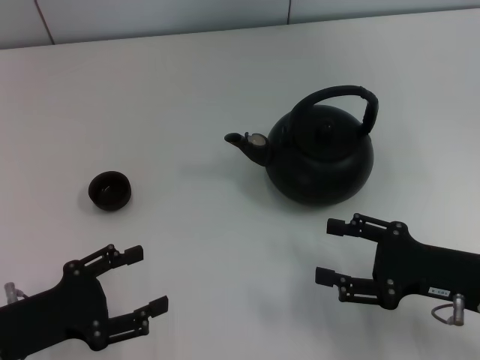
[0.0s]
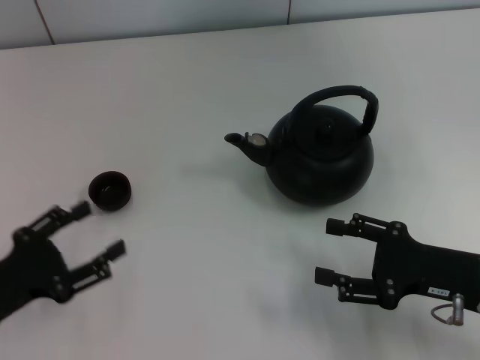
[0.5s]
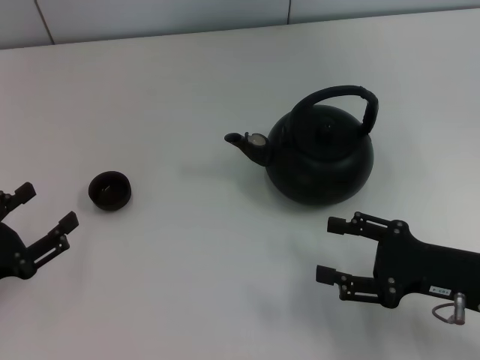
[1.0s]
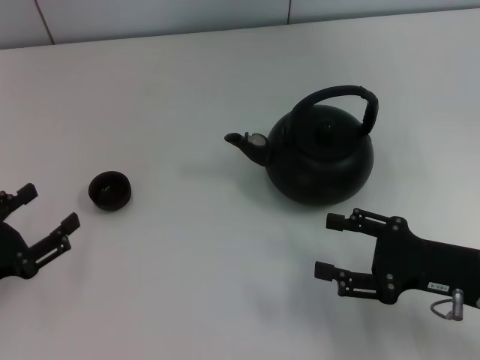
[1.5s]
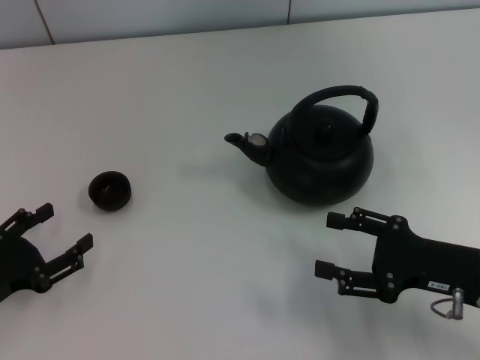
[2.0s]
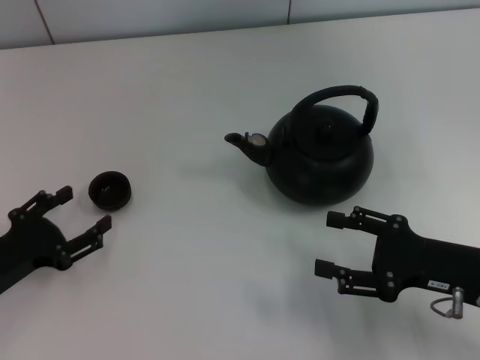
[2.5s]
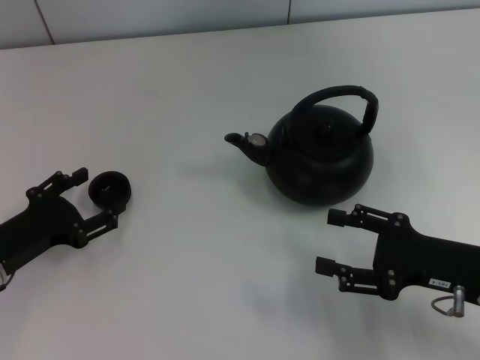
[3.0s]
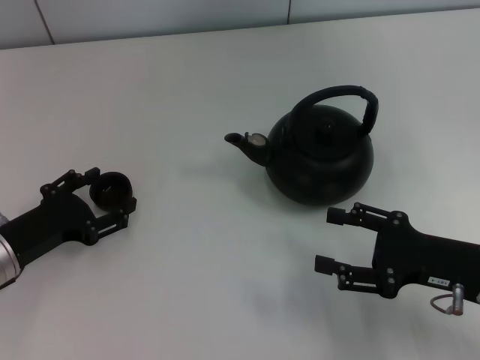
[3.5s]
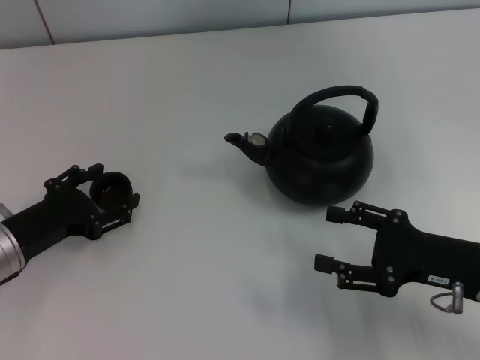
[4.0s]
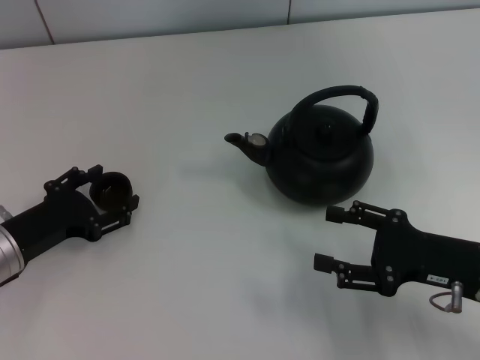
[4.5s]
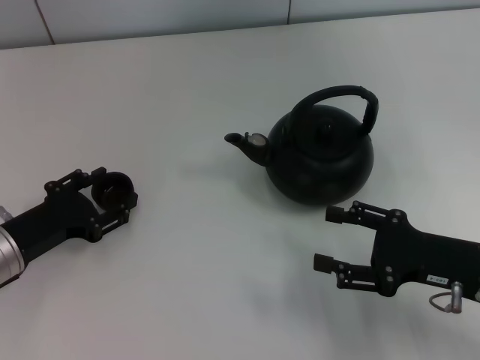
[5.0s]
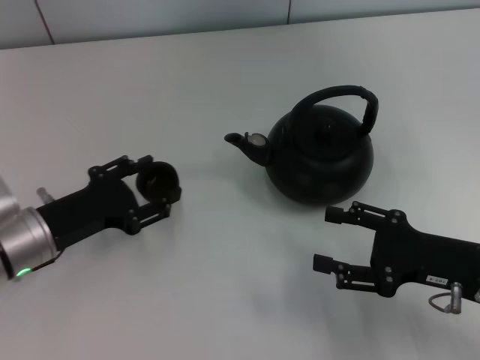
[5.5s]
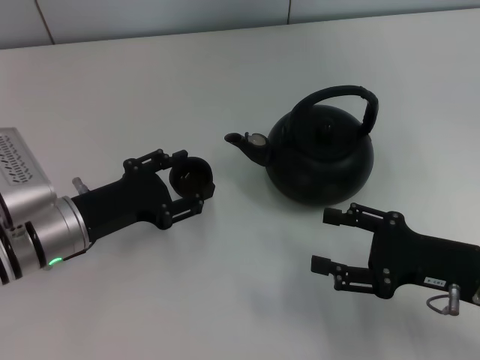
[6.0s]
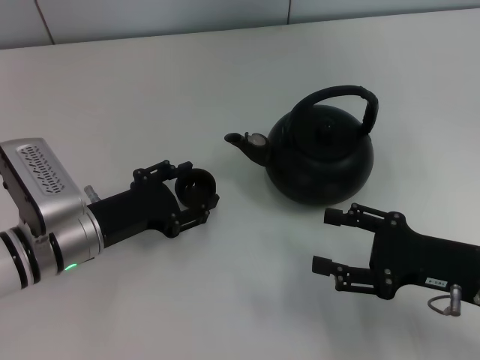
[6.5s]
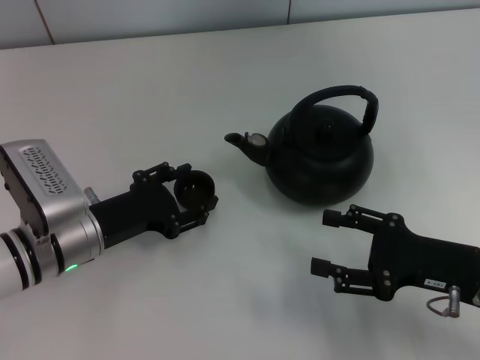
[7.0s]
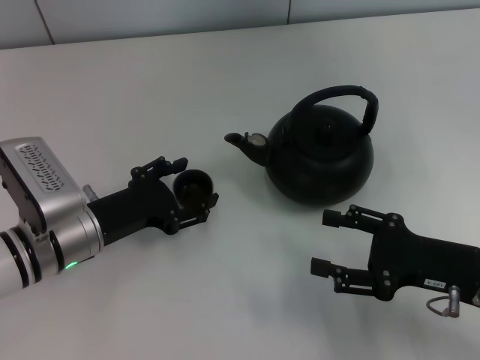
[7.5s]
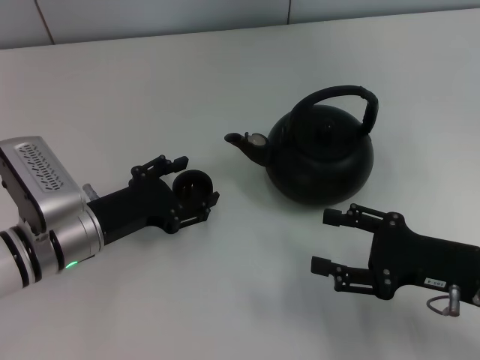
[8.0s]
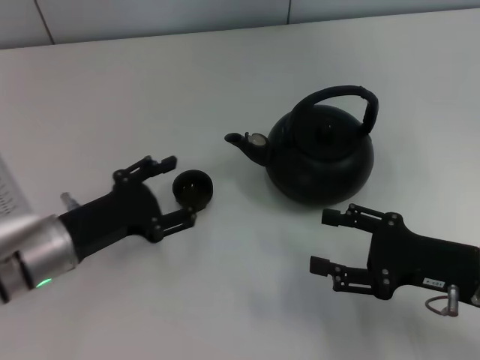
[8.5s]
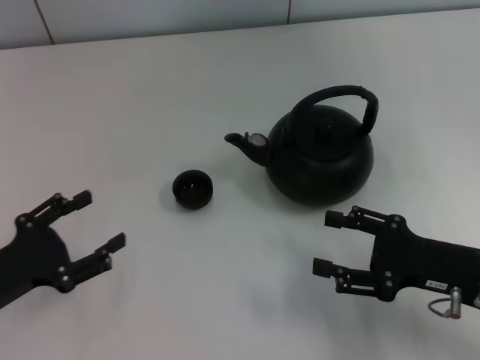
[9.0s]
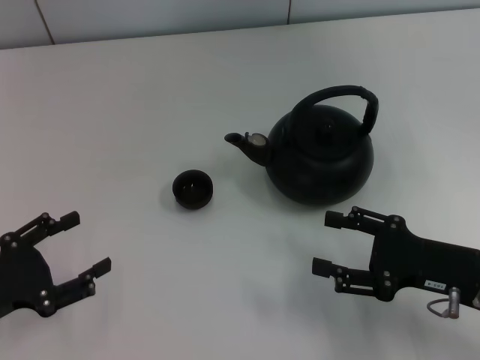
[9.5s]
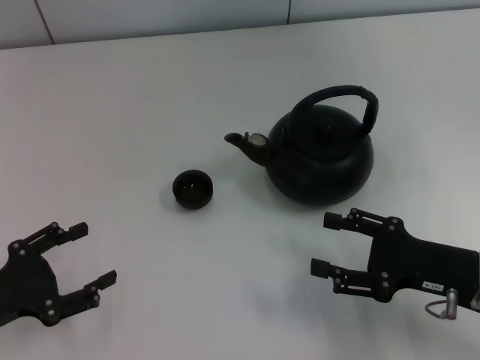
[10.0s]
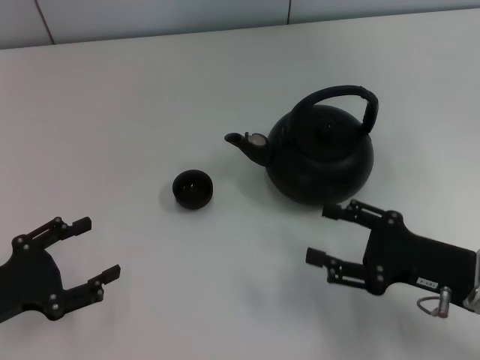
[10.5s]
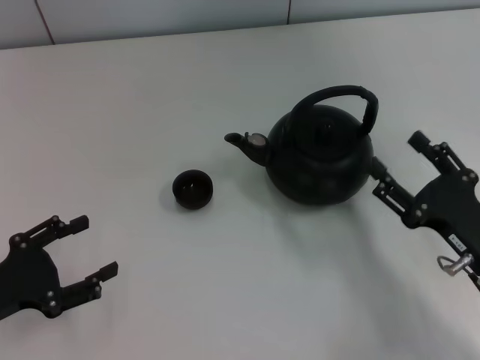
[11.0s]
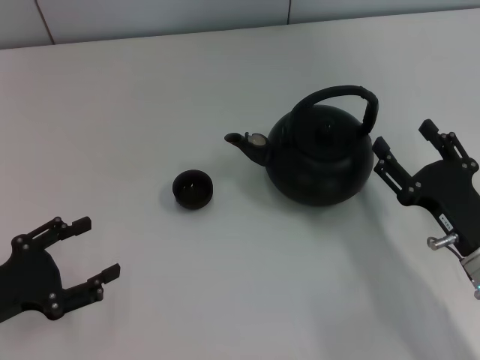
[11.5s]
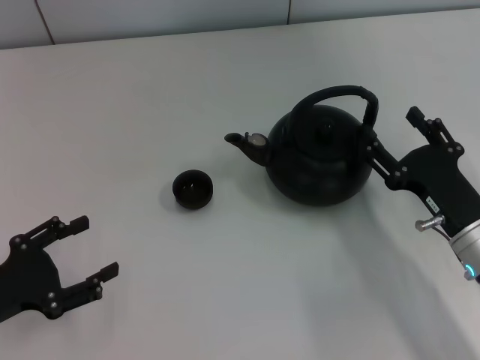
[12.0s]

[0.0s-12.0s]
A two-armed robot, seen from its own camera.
Task of the whole recording: Grasp the handle of the teapot with one hand and pour tea into the teacup.
Step, 0.0s to 5.5s: Pick up the teacup with the left gripper.
Step, 6.0s to 8.0s: Place the teacup in the center of view with the left gripper.
2.0s to 4.0s: The left gripper heads forward, covering some 5 cm.
4.0s to 6.0s: The left gripper moves to the right, about 5 cm, and closes up.
6.0s to 8.0s: The left gripper opens up.
8.0s to 10.0s: The left gripper moves to the left and backward, some 15 cm.

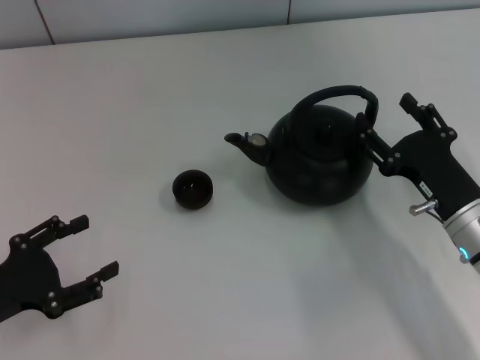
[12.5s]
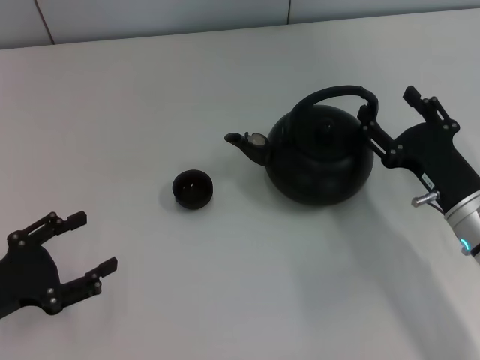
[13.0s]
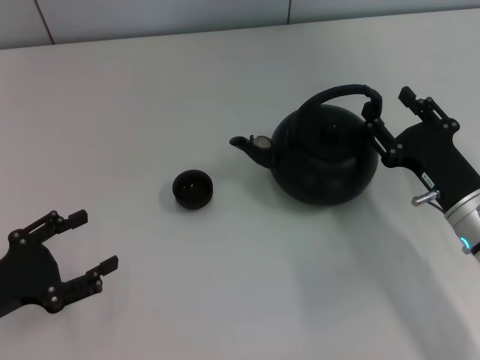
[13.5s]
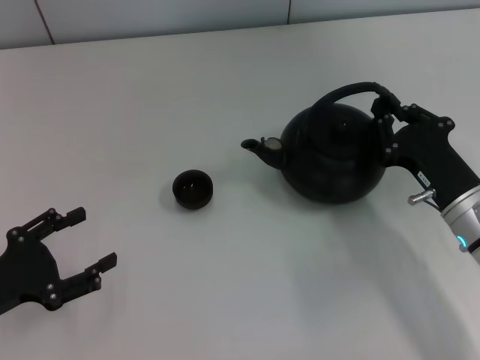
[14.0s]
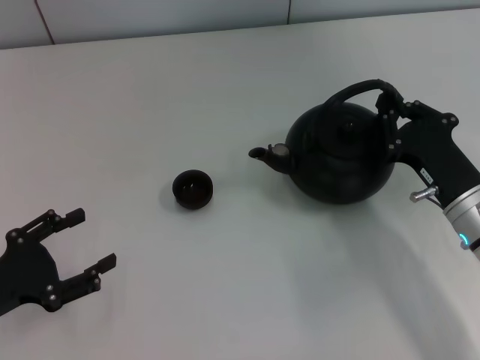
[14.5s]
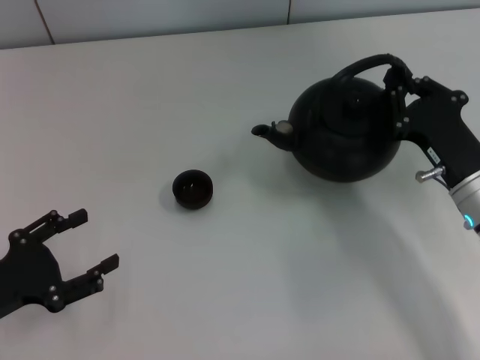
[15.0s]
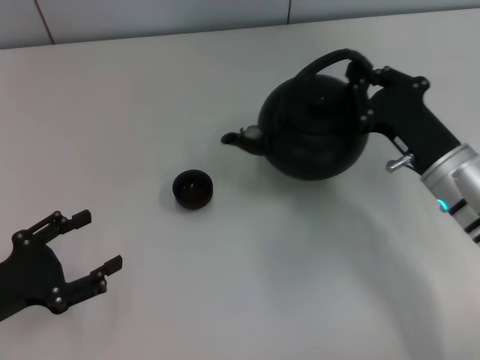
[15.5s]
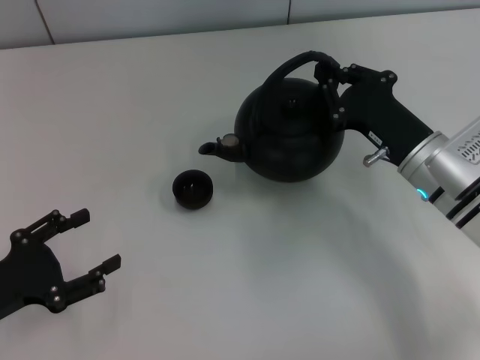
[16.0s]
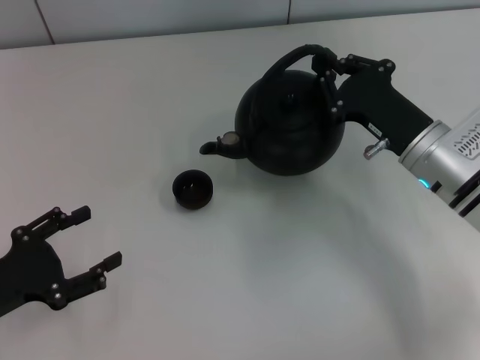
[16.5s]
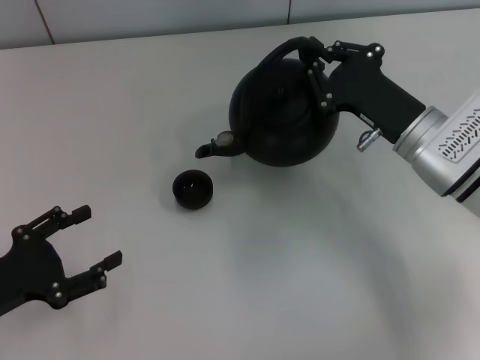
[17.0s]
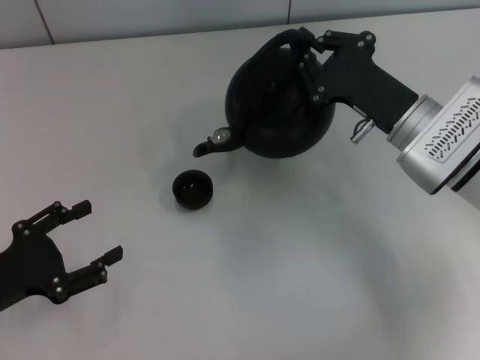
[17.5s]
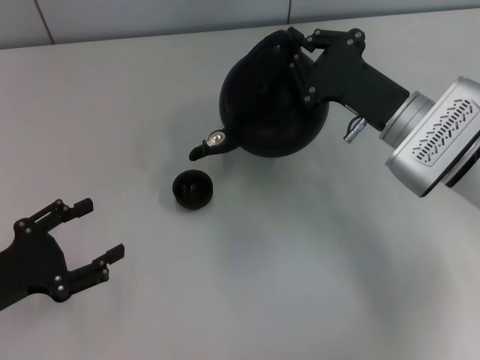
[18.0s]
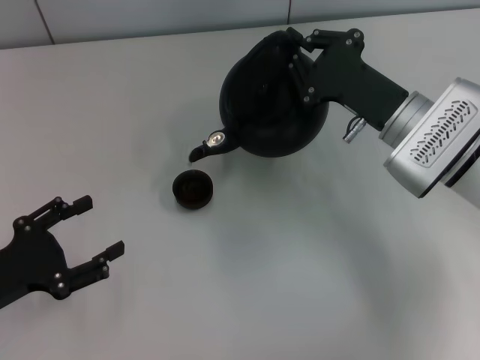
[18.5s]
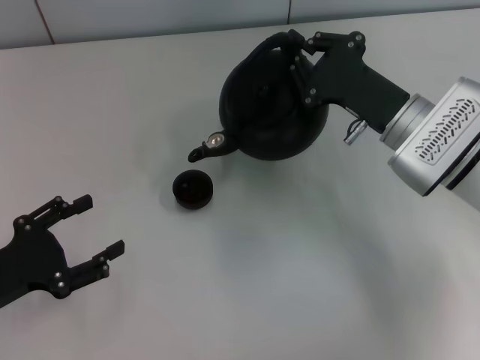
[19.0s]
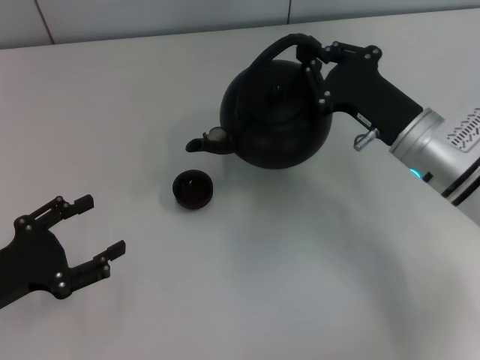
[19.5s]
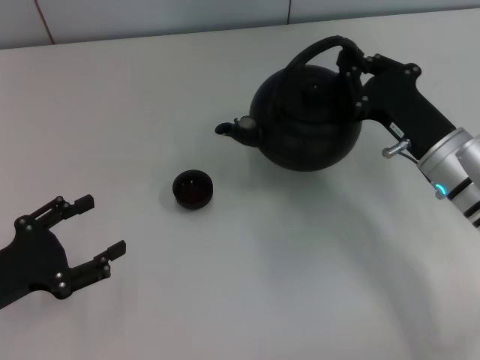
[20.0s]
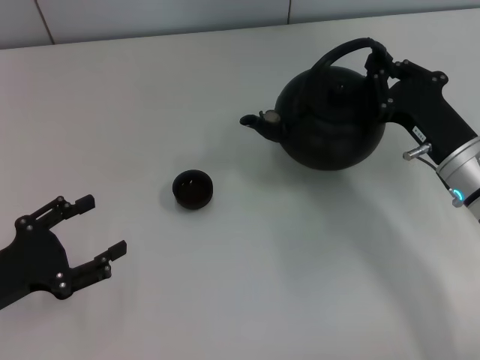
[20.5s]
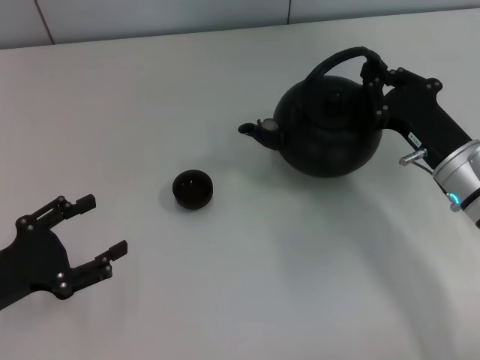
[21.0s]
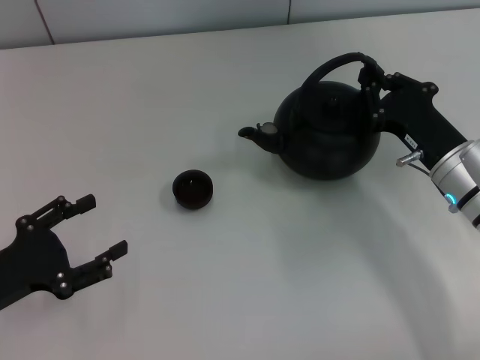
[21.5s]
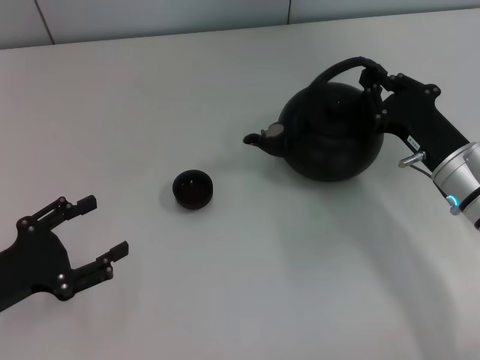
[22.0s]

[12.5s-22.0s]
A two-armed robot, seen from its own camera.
Task of the whole recording: Grasp the handle of the teapot with one hand and pour tea into the teacup.
Step, 12.5s to 15.0s: Pick up the teapot with the right gripper.
12.5s to 14.5s: The right gripper closes its fingers.
14.5s to 16.5s: The right gripper goes some 5 cm forward.
16.5s to 18.0s: The grippers stay close to where they were, moving slightly.
18.0s to 20.0s: The right gripper shifts by approximately 5 cm.
20.0s to 22.0s: The grippers make only small movements.

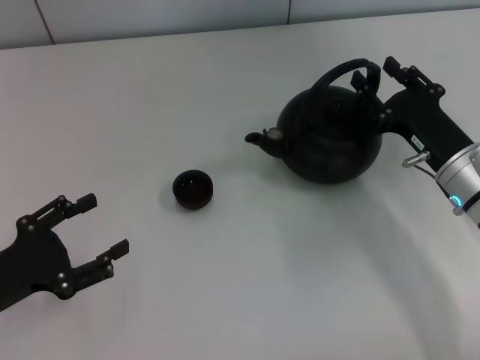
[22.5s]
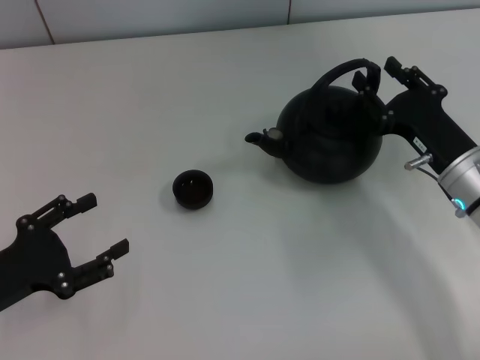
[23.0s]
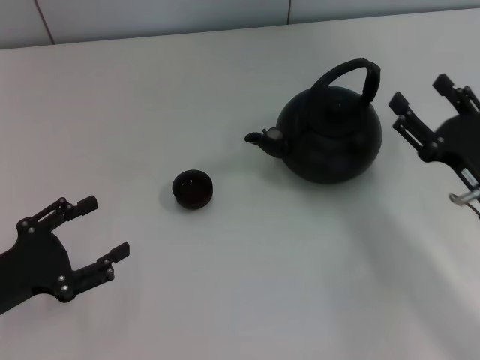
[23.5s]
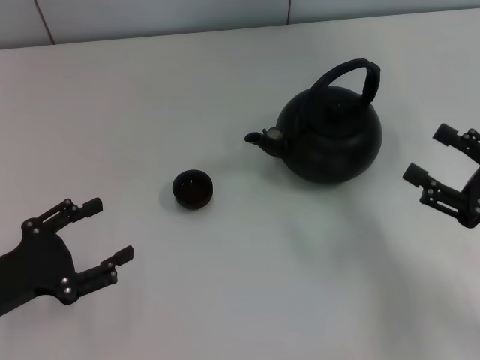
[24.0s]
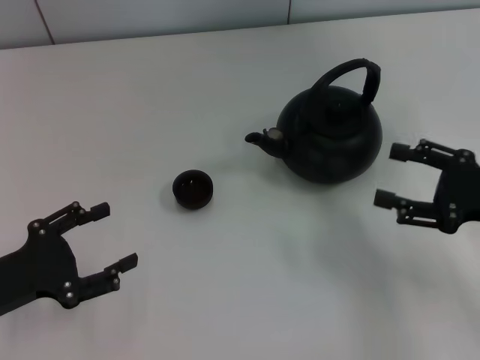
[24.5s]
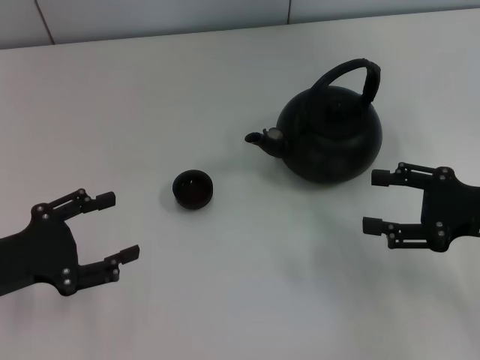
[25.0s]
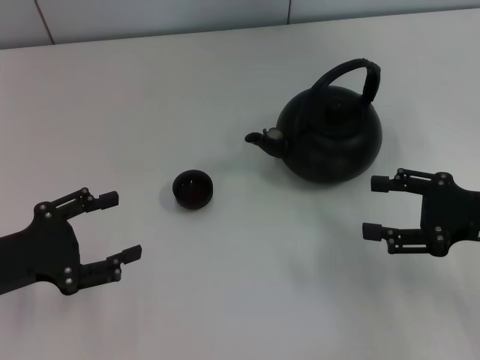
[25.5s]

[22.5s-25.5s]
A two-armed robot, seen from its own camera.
Task of the whole recording: Grasp the handle of the teapot with one hand and pour tea into the teacup.
22.5s to 24.0s: The right gripper heads backward and to the right, covering approximately 10 cm, and opens up.
24.0s to 25.5s: The right gripper changes place by roughly 5 cm.
